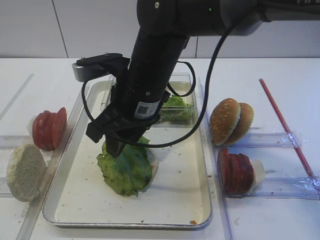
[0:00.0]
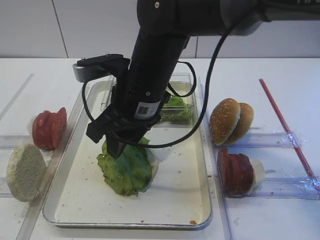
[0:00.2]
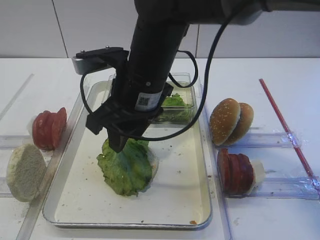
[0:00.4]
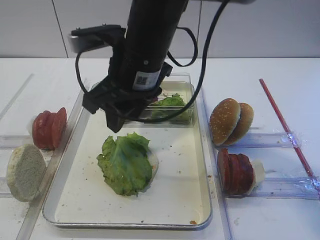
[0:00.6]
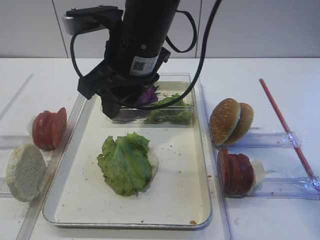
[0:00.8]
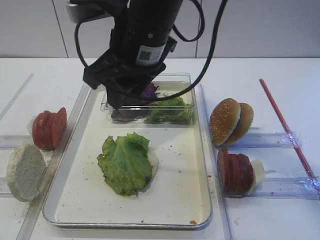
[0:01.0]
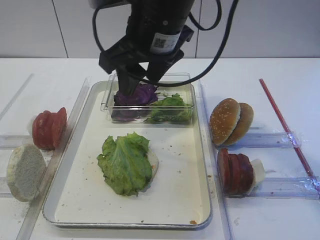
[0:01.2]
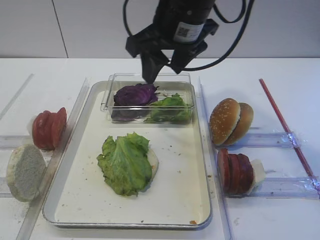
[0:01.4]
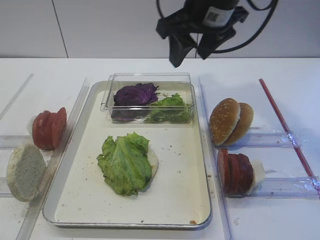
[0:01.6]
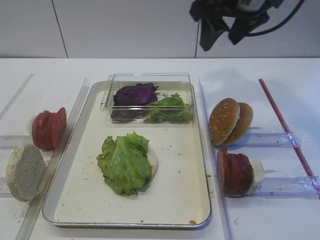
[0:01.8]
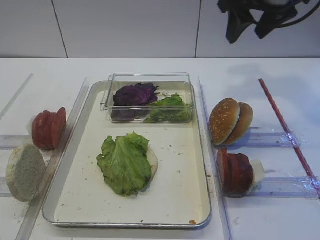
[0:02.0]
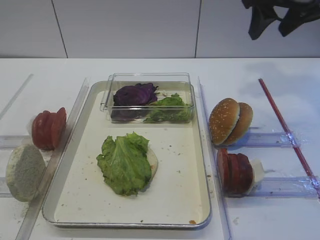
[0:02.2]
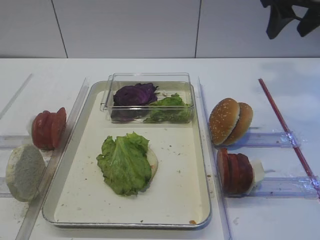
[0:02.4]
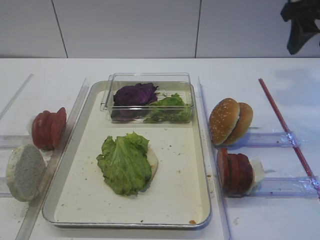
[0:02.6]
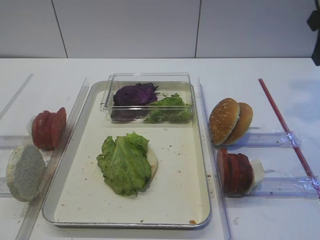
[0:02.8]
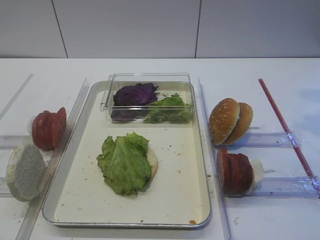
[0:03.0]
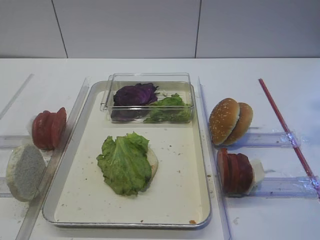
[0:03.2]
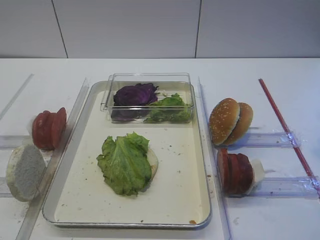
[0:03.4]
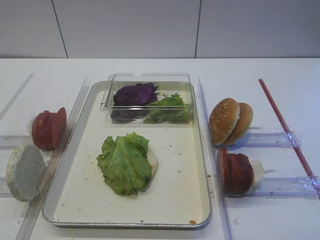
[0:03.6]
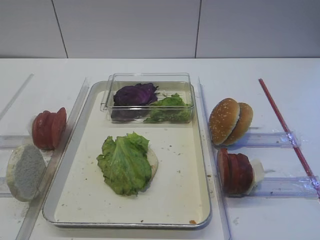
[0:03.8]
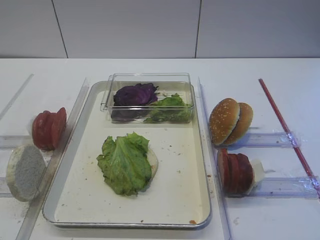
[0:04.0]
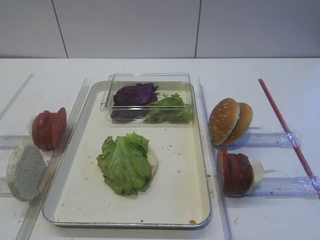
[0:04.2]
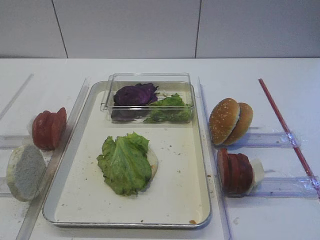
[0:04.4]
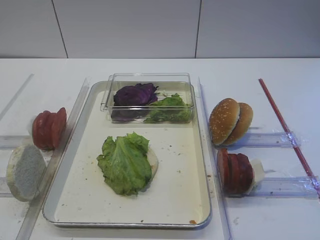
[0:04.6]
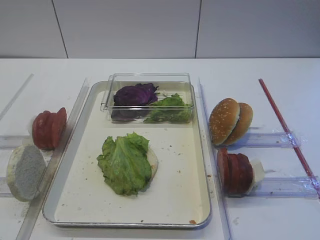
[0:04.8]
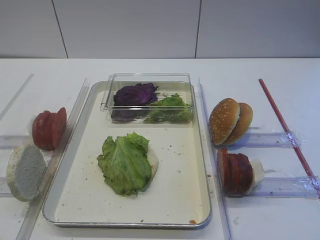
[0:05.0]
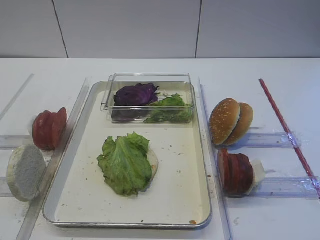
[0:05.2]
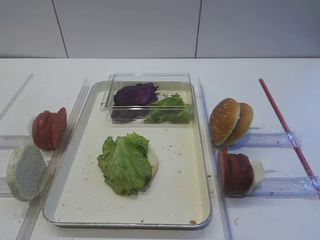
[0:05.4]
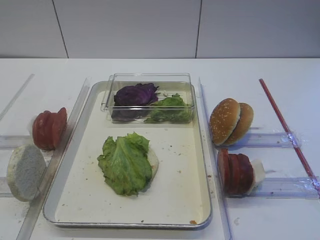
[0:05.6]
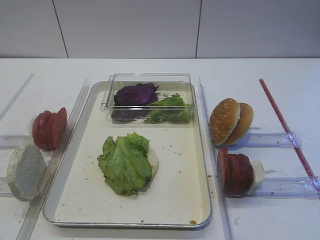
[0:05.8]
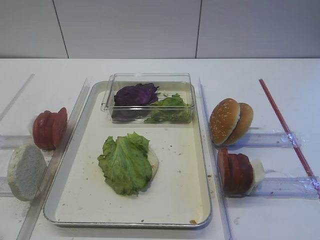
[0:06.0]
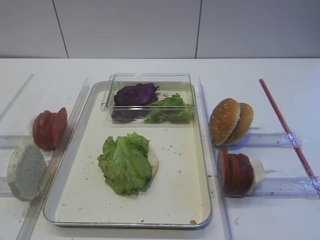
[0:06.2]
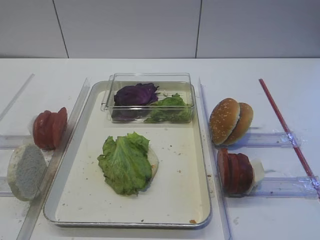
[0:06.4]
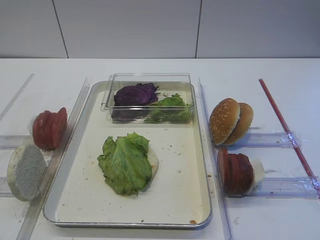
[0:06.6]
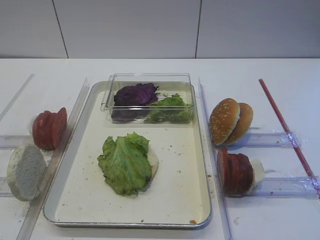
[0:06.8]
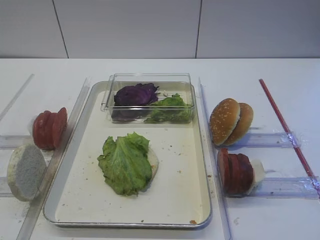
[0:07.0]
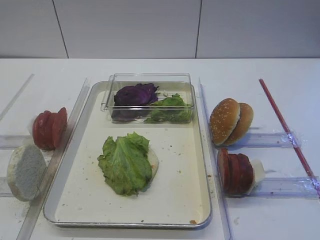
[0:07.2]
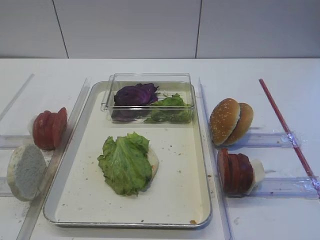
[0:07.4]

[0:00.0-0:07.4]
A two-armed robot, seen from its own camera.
0:00.0 to 0:01.4: The right gripper goes approximately 10 cm upward and to the right.
0:01.4 to 0:03.0: The right gripper moves to the right, roughly 25 cm.

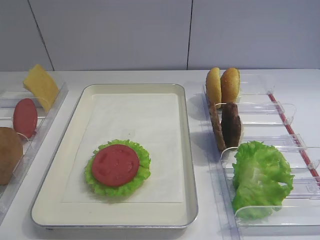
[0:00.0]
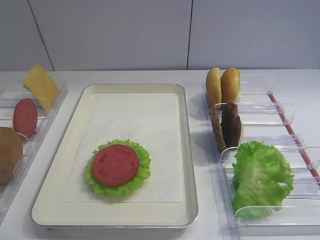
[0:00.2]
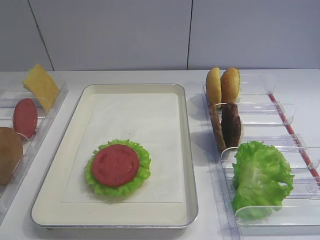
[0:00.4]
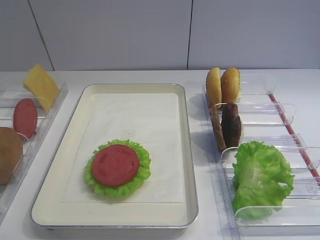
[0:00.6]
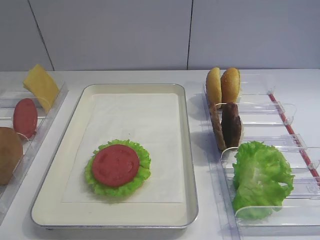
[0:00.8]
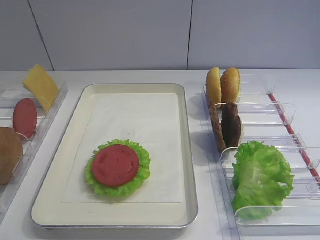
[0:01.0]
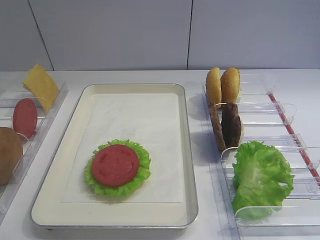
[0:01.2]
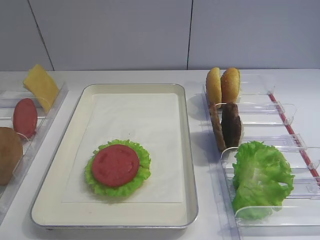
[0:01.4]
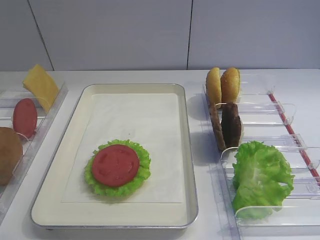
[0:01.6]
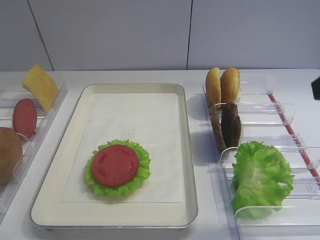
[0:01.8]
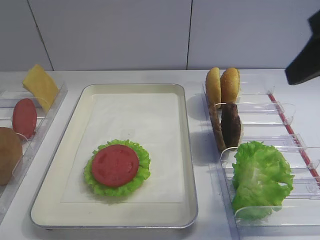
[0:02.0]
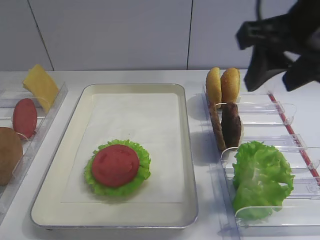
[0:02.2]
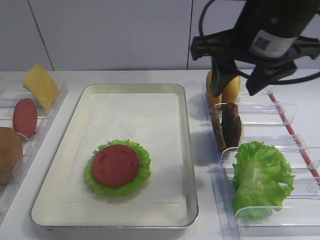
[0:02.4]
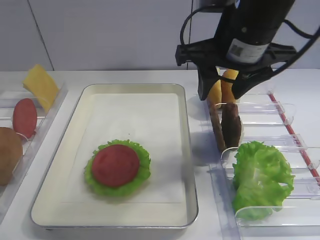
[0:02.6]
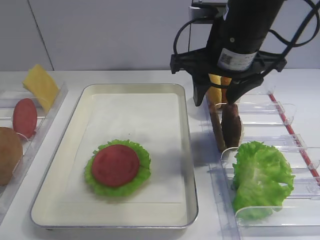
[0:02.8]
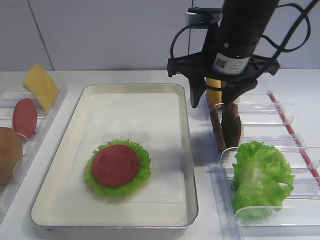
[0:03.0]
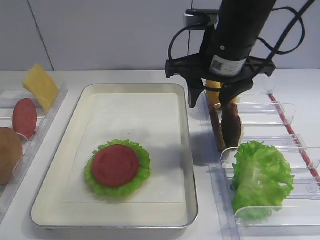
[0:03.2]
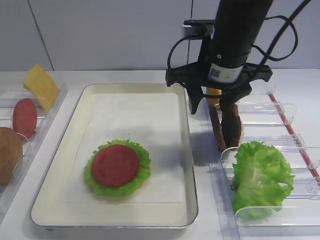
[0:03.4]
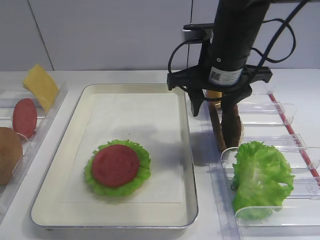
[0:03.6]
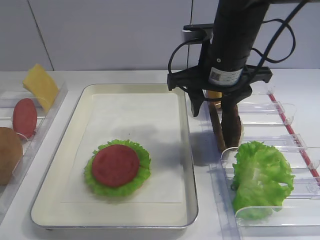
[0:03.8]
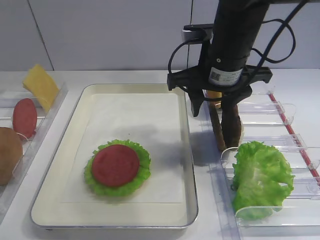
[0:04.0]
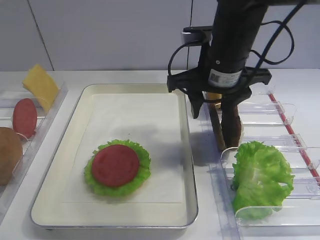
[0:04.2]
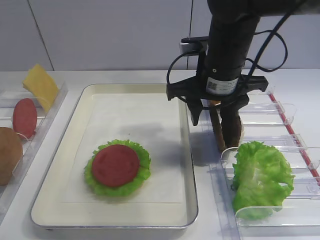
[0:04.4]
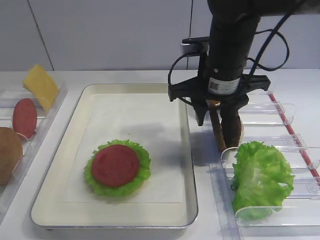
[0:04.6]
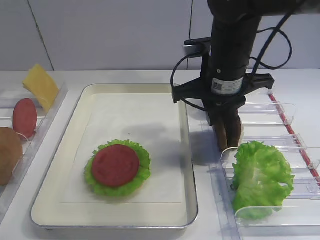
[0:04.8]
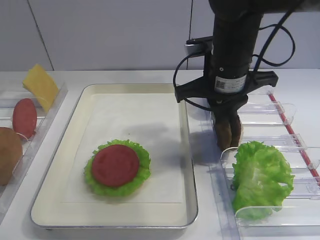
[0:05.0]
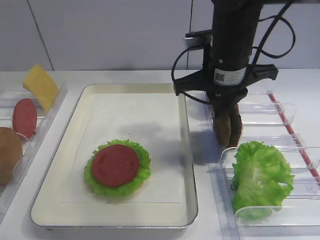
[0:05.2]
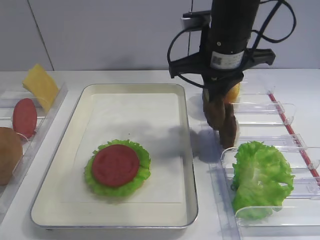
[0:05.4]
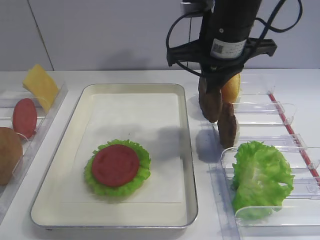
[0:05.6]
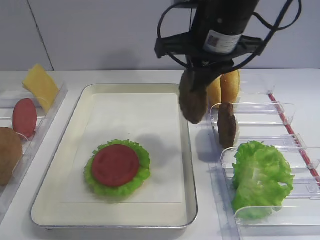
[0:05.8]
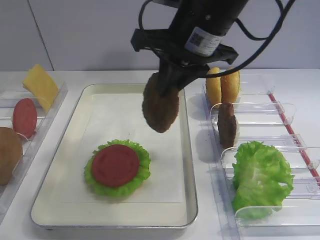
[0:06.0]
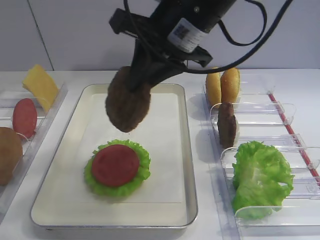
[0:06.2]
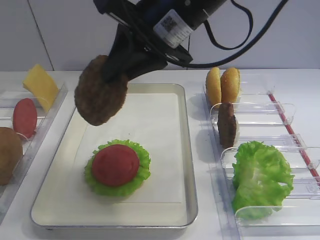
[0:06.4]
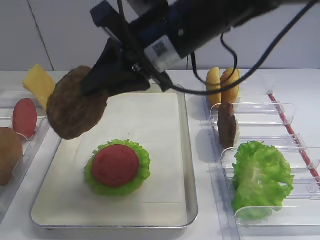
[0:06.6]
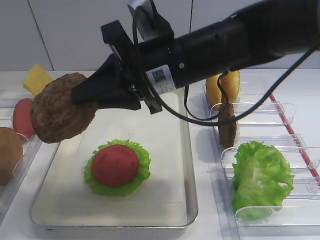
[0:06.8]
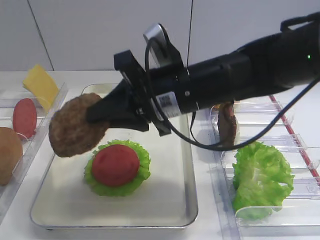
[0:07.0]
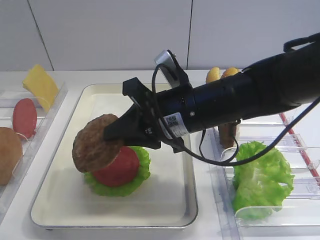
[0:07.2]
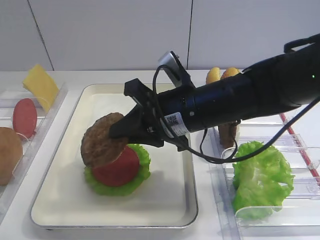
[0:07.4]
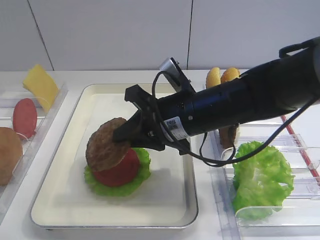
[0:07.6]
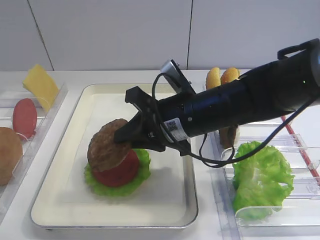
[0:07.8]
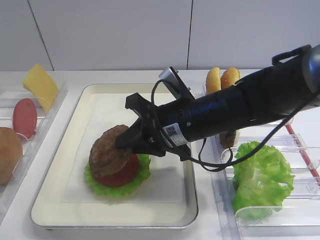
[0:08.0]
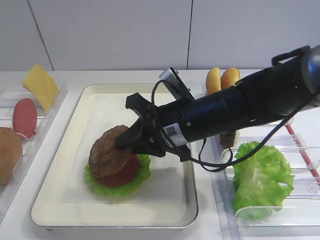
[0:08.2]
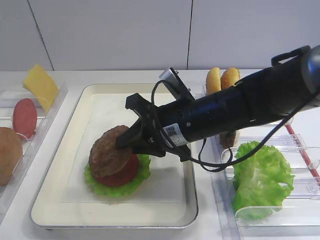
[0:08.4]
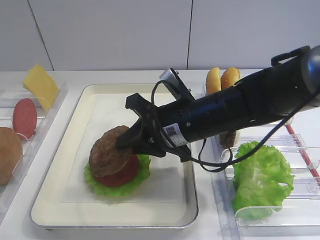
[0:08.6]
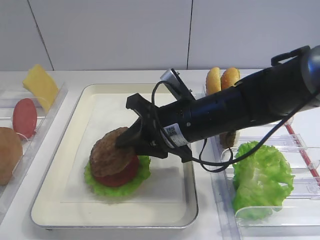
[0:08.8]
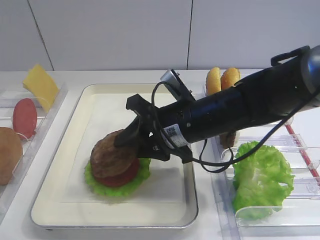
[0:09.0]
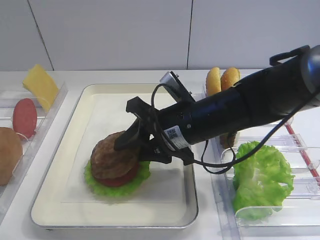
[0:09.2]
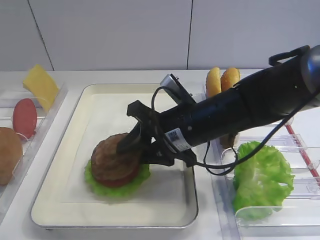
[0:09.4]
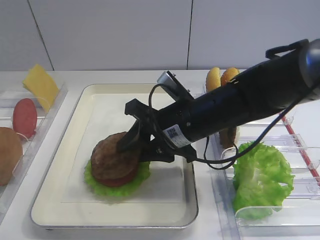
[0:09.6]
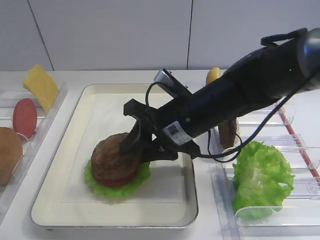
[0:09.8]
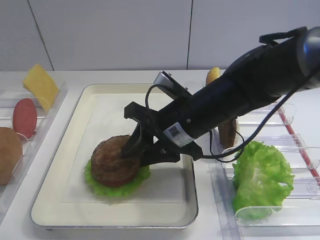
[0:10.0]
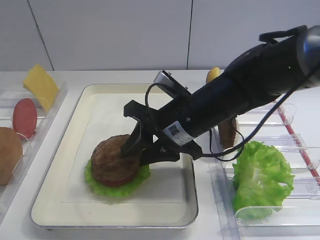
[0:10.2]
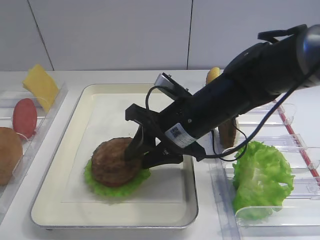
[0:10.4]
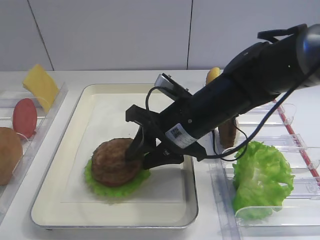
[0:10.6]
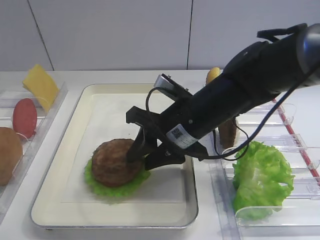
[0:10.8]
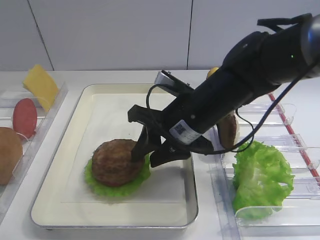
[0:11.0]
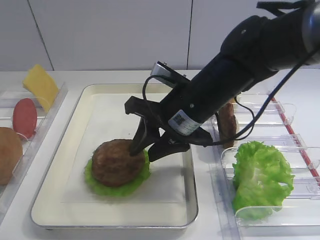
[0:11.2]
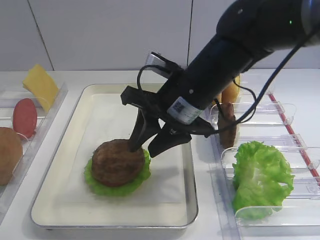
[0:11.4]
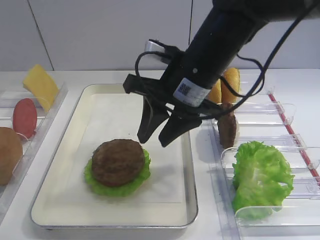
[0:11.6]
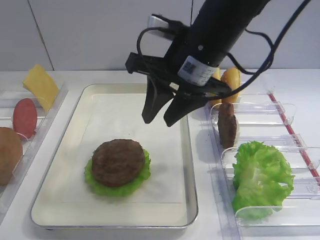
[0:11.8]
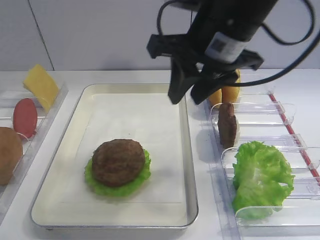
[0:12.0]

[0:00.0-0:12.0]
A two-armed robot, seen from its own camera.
Step, 0:00.0 to 0:05.4: Pick up the cutlet with the right gripper.
Step, 0:05.6 to 0:11.0: Place the cutlet on the tomato slice with the right gripper.
0:01.6 to 0:03.0: The right gripper heads forward and to the left, covering about 25 cm.
0:03.0 to 0:04.4: The grippers stay close to where they were, moving slightly.
0:04.4 to 0:06.0: The right gripper is displaced upward by roughly 10 cm, and closes.
0:06.0 to 0:07.6: The right gripper shifts approximately 10 cm downward.
0:07.6 to 0:09.0: The right gripper opens up.
0:09.0 to 0:10.4: There are only small adjustments of the grippers.
0:10.4 to 0:12.0: The right gripper heads upward, covering approximately 15 cm.

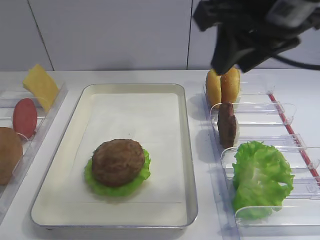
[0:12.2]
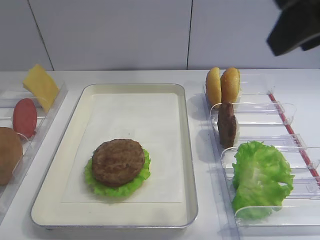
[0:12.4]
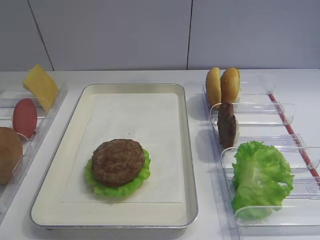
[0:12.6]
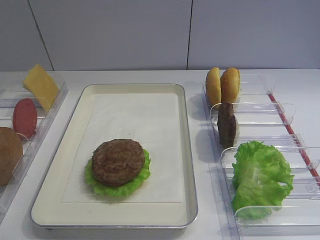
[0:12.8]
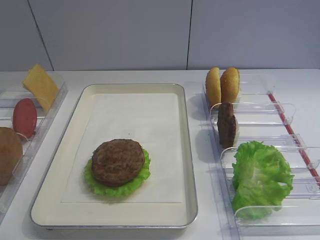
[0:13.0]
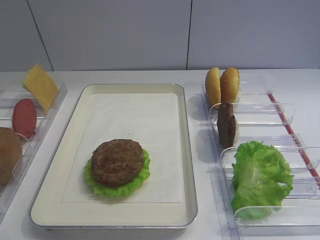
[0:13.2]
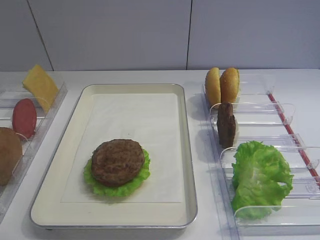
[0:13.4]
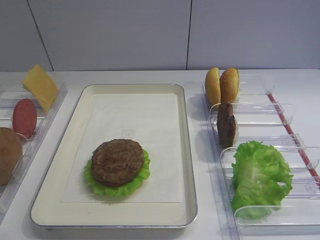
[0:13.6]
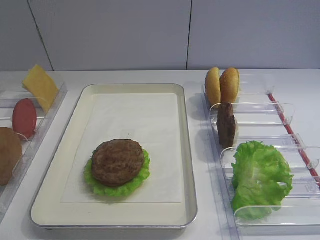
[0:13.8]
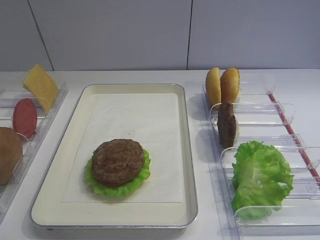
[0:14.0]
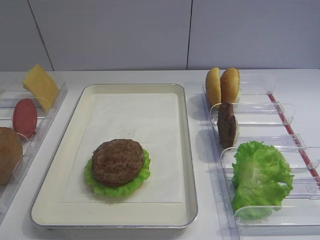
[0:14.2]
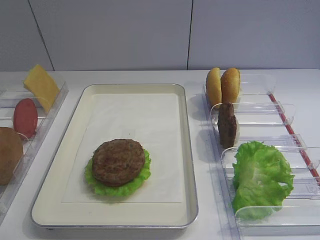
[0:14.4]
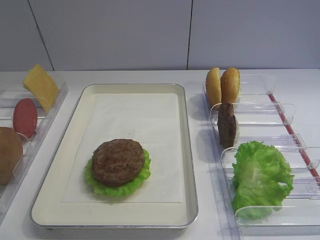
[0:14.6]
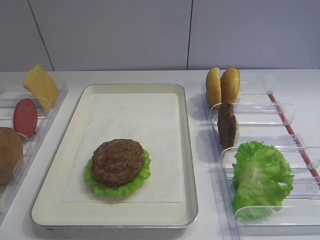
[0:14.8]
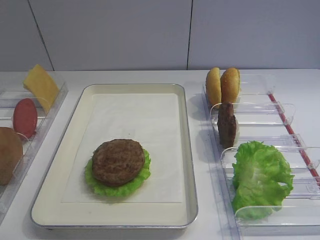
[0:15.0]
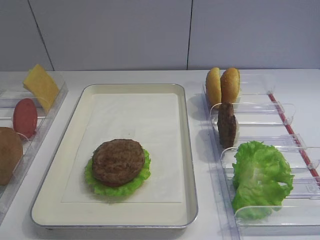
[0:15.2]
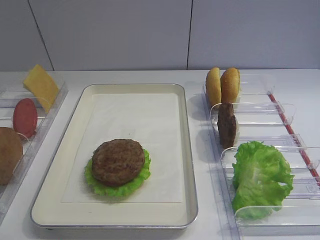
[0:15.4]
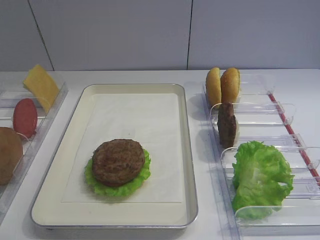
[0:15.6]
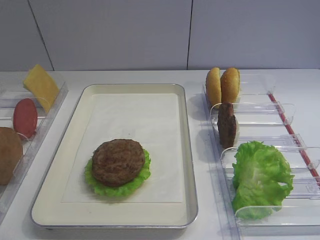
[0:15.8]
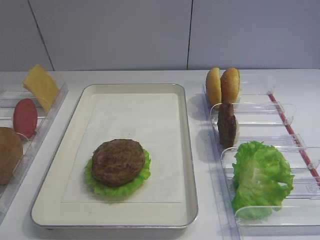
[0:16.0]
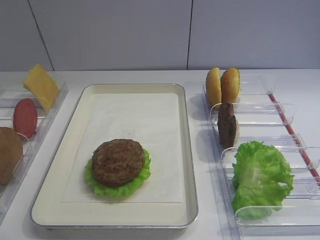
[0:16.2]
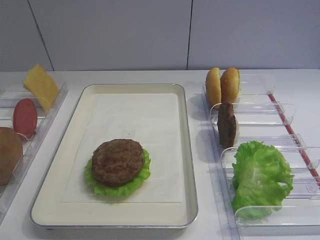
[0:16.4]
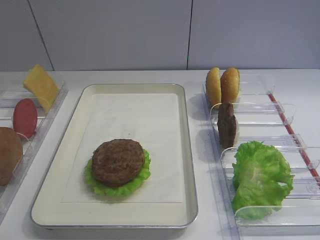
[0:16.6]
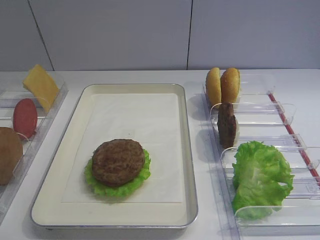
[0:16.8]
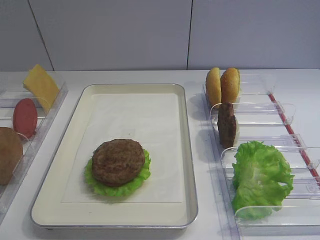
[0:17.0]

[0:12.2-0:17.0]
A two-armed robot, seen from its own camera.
0:12.2 to 0:13.8: The right gripper heads backward and to the right, covering some 30 cm.
0:15.4 to 0:17.0: Both grippers stay put.
